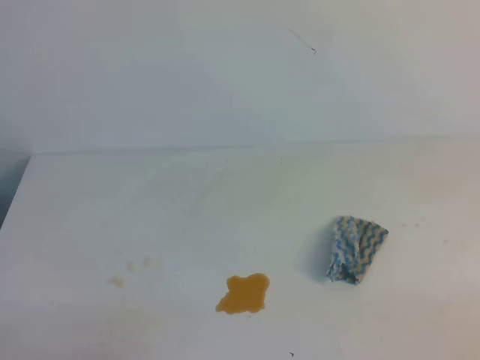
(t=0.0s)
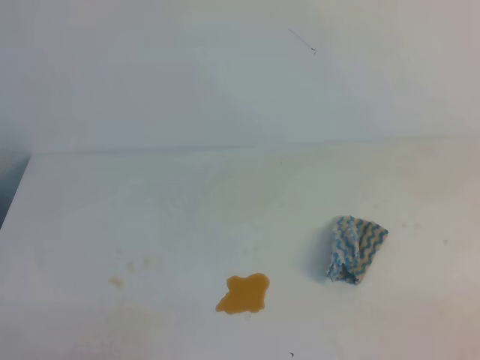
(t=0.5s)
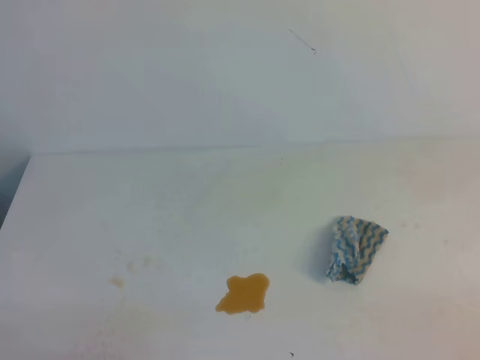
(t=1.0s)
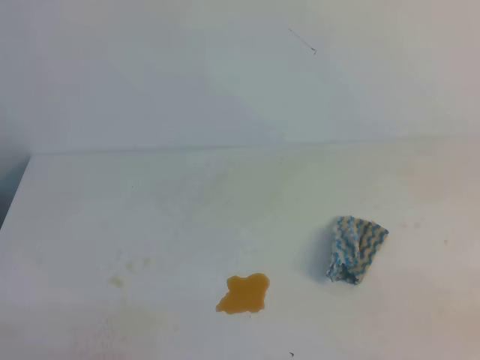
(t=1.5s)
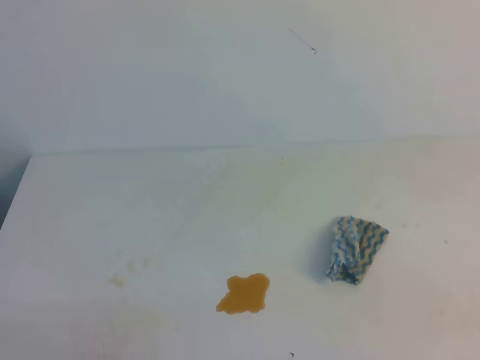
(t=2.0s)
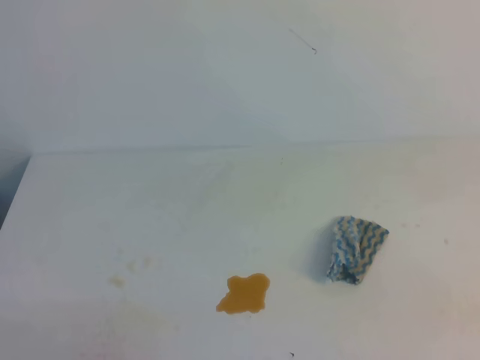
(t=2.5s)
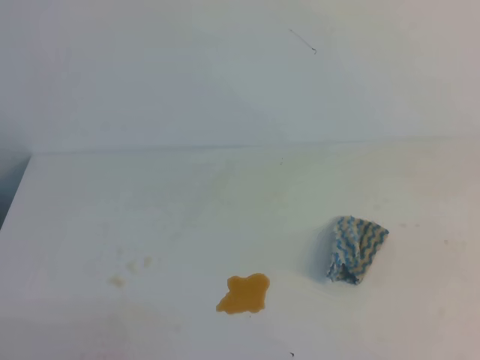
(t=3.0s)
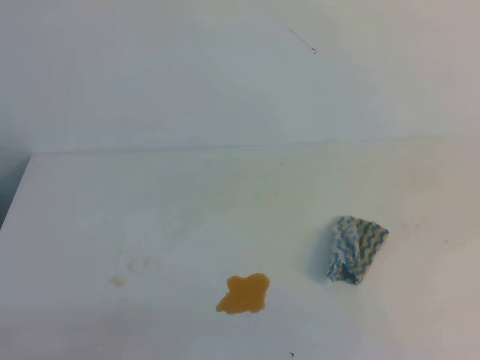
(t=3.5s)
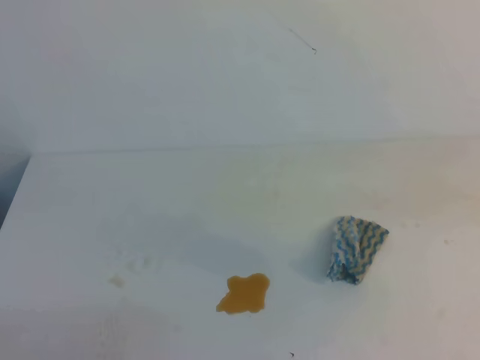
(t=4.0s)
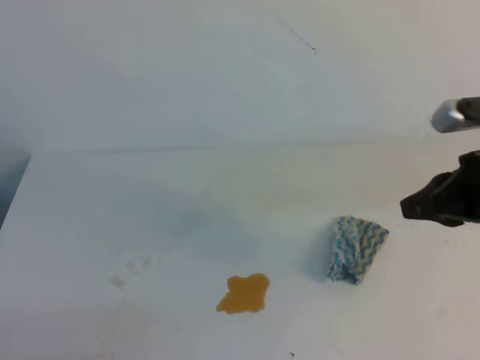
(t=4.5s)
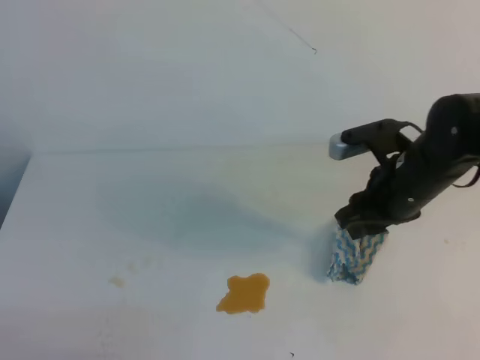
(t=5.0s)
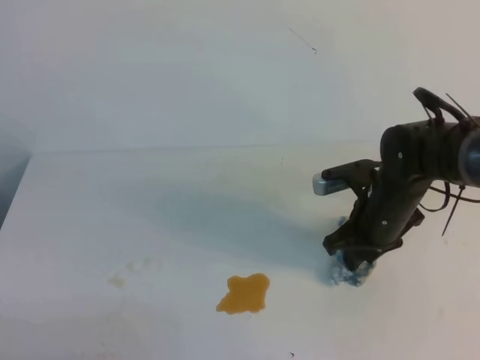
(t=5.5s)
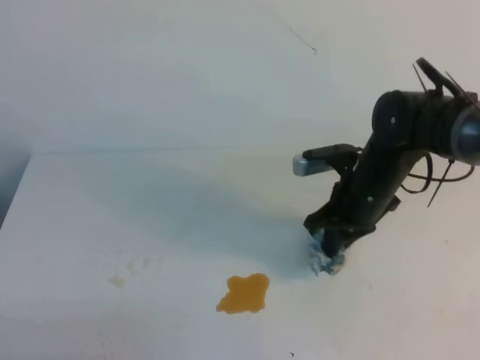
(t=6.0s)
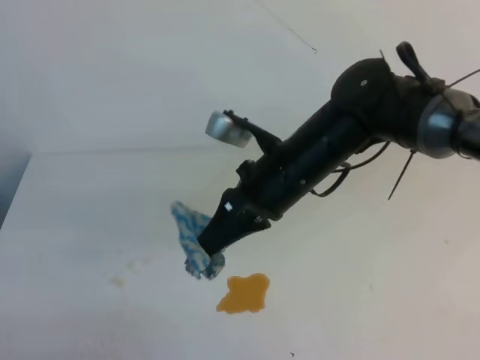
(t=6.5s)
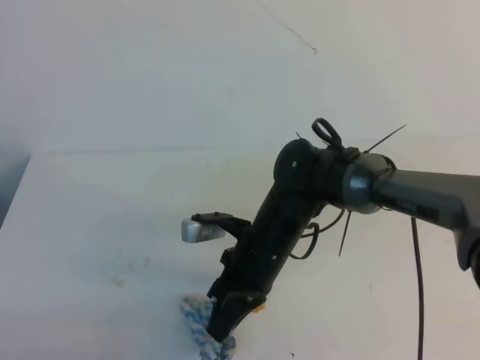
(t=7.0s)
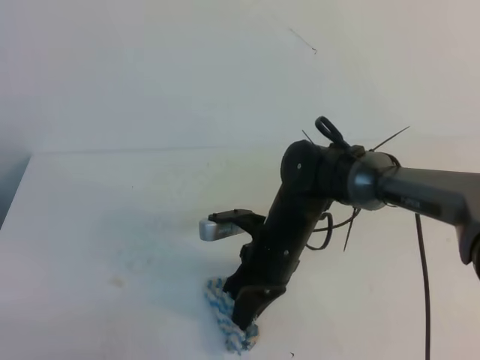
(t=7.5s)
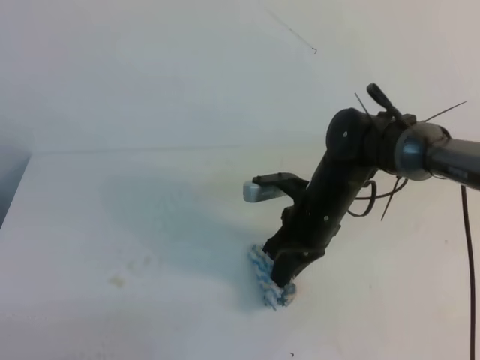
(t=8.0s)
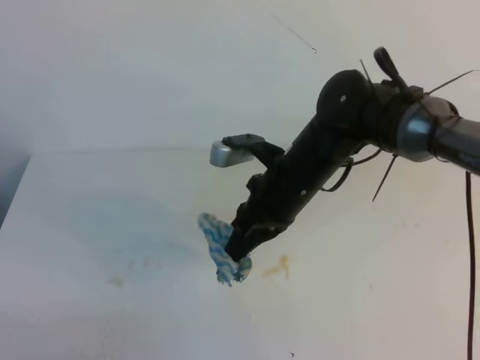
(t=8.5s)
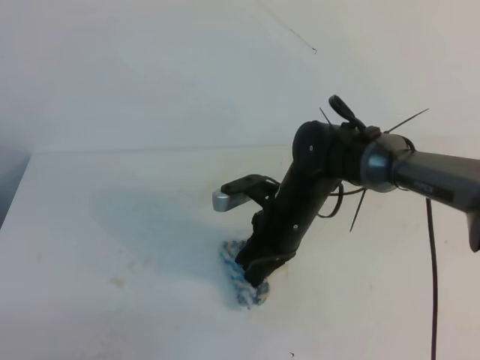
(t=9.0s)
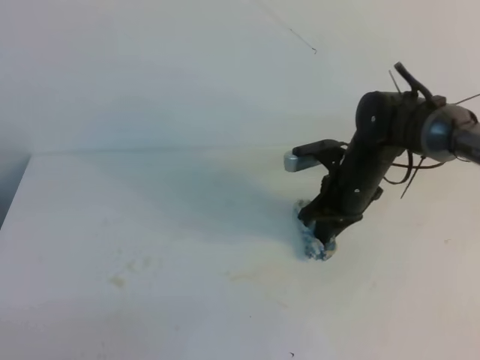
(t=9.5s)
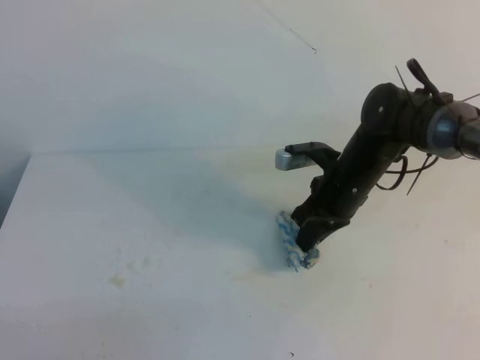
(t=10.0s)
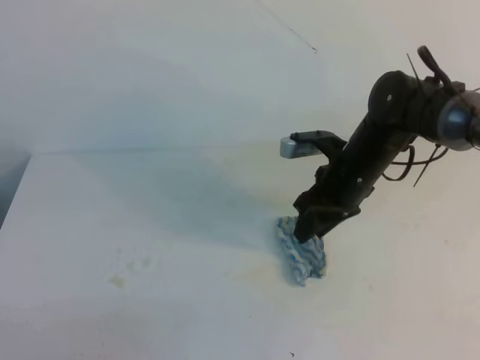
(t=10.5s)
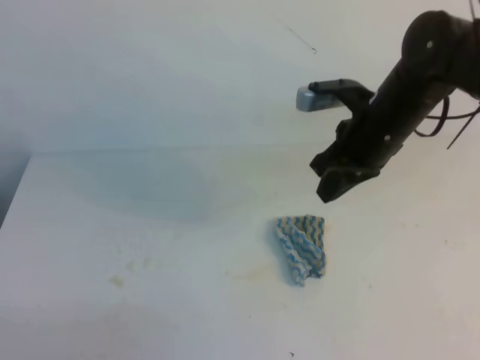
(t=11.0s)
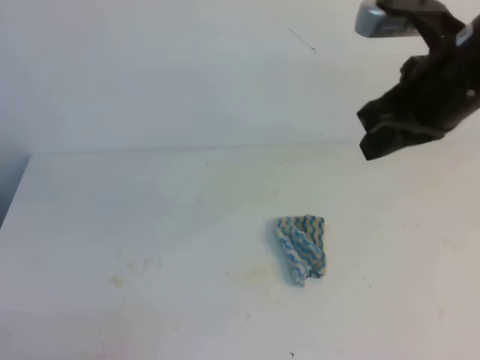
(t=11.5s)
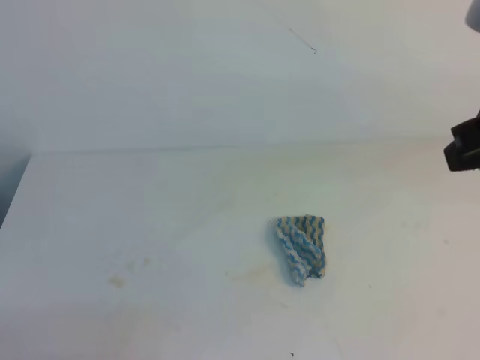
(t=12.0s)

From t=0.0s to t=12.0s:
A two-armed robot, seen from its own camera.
From t=4.0s to t=6.0s: The right gripper goes approximately 25 cm forward, to the left and downward, and opens, then closes once more.
From t=6.0s to t=8.0s: The right gripper travels to the left by approximately 5 cm.
From t=8.0s to t=10.0s: The right gripper shifts about 5 cm to the right.
From t=10.0s to t=12.0s: The right gripper moves upward and backward, some 30 cm, and opens and closes again.

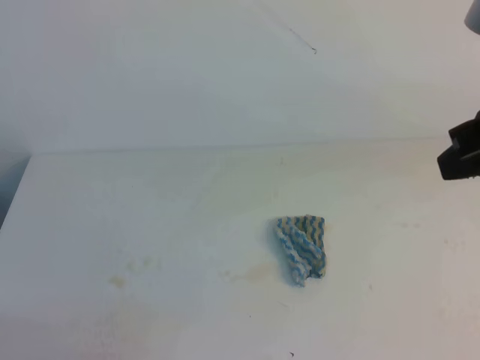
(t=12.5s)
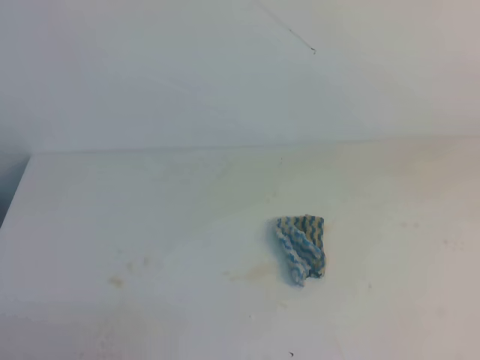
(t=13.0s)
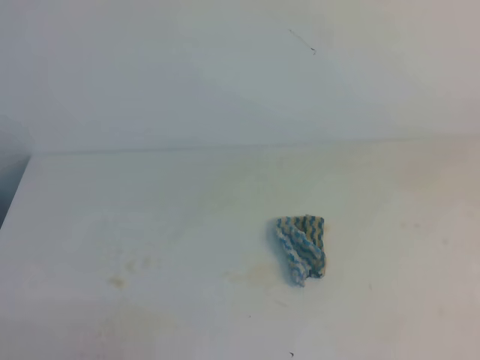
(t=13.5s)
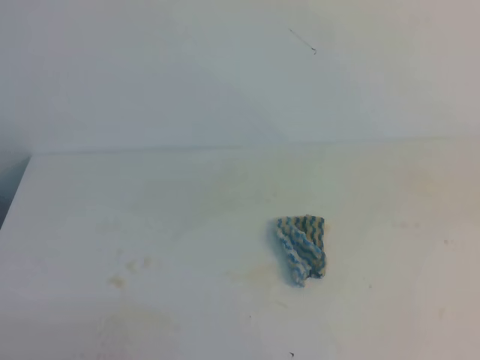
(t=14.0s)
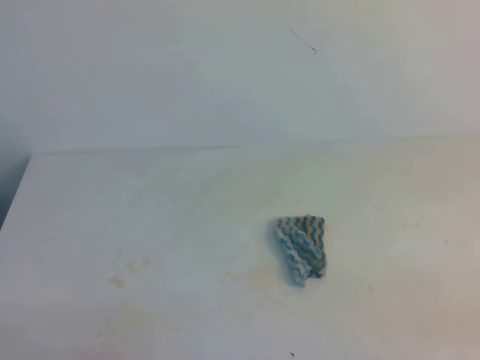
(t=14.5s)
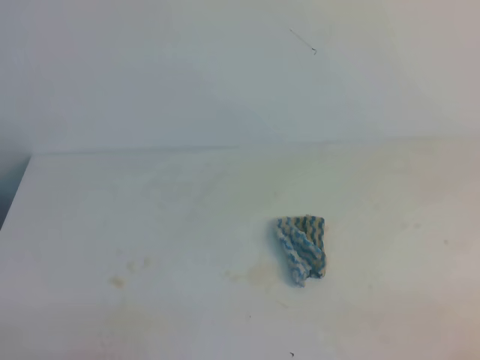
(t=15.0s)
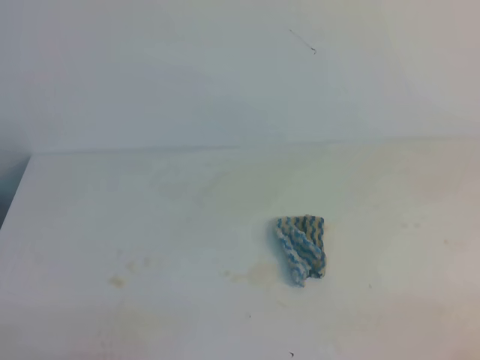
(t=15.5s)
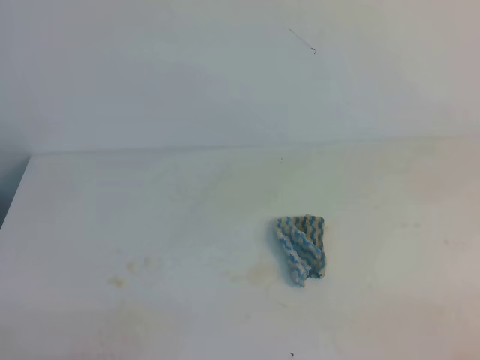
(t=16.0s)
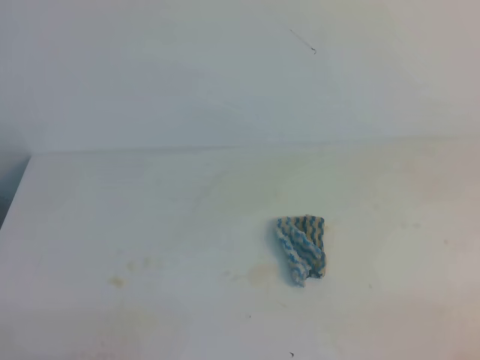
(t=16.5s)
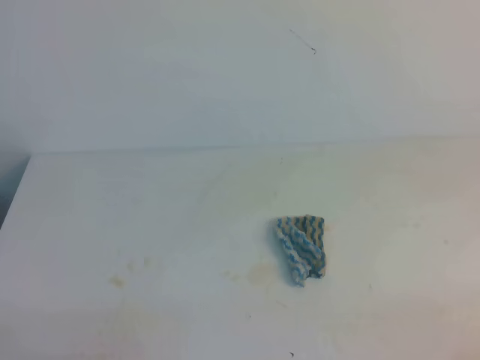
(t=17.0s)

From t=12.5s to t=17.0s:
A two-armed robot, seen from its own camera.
From t=12.5s to t=14.5s: The right gripper moves backward, downward and to the right, roughly 25 cm.
